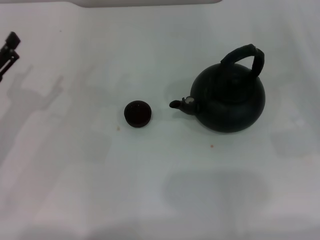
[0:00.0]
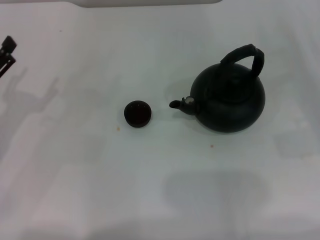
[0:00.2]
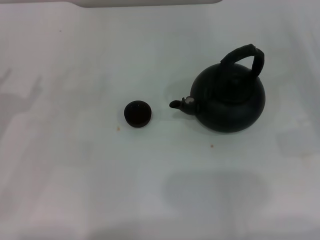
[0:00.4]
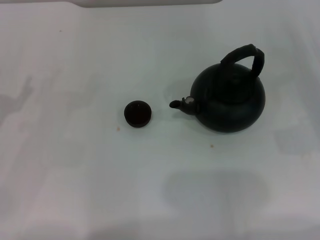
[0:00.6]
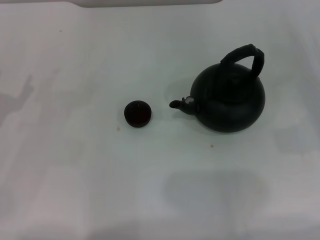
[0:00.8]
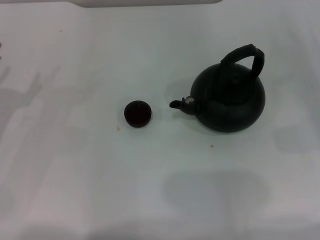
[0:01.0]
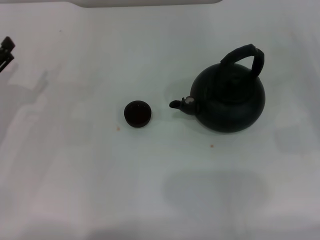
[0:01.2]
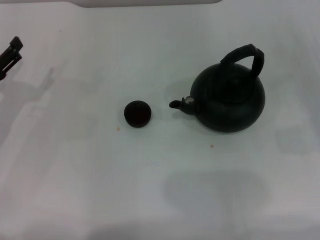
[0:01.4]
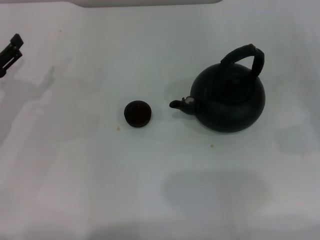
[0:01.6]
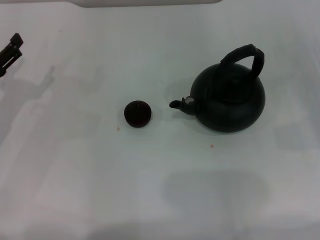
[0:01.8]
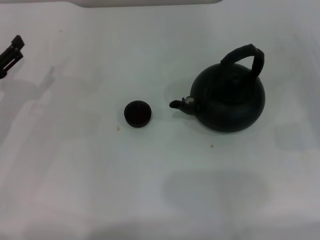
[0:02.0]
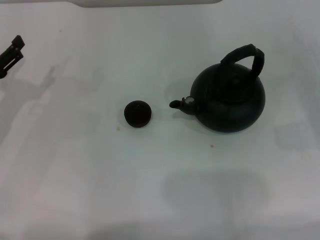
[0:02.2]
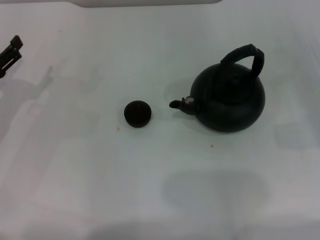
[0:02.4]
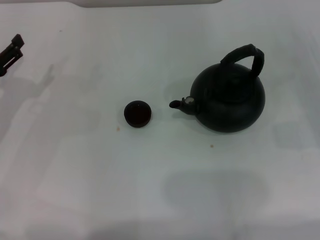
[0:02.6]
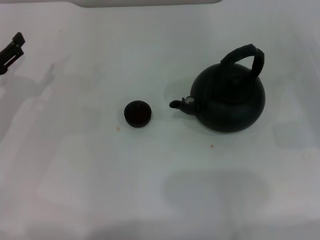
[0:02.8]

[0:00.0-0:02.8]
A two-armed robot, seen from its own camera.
Task of the whole recording: Grasp the handle of the teapot with one hand and pour tea into the teacup.
1.4 to 2.8 s: Both grippers stay put.

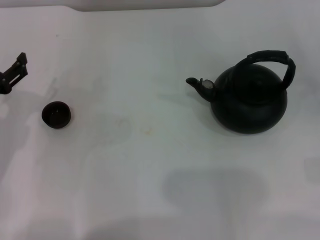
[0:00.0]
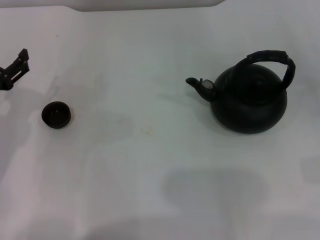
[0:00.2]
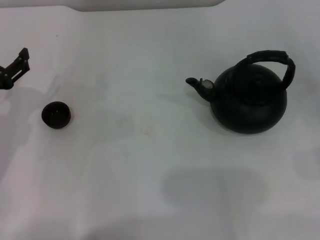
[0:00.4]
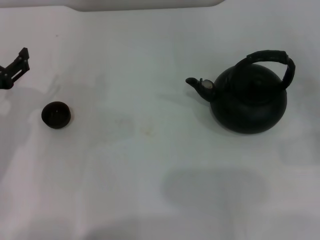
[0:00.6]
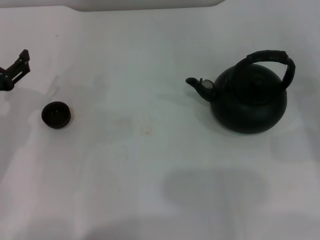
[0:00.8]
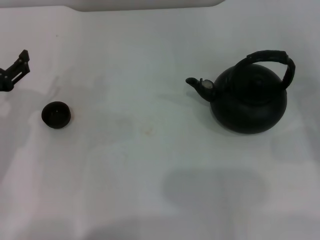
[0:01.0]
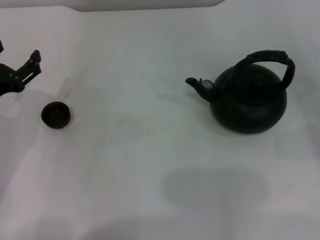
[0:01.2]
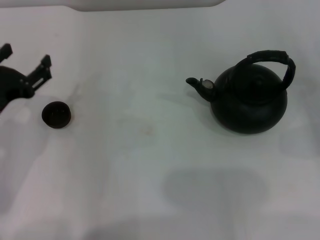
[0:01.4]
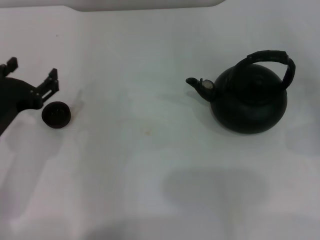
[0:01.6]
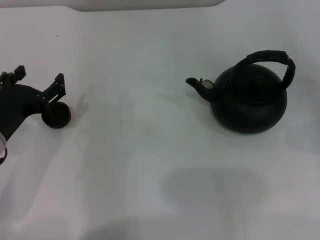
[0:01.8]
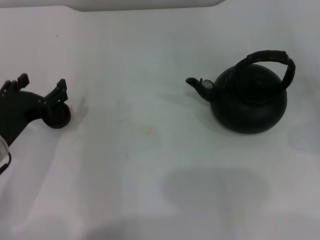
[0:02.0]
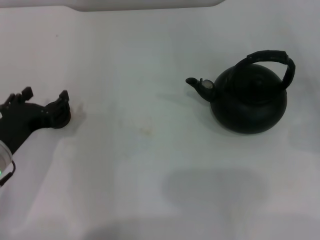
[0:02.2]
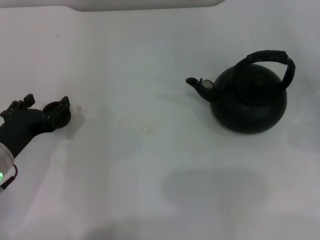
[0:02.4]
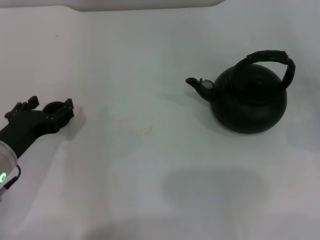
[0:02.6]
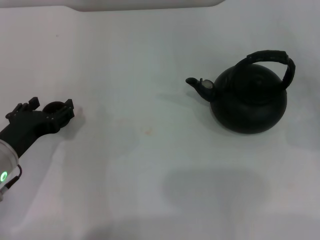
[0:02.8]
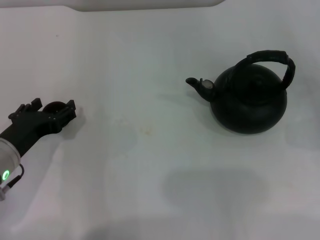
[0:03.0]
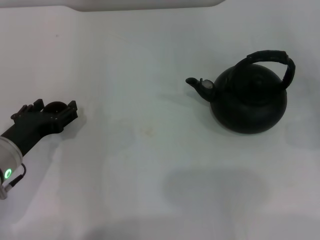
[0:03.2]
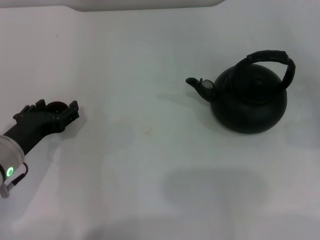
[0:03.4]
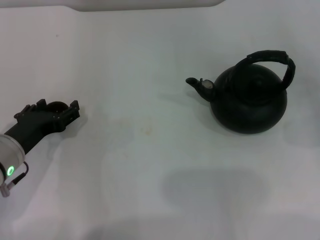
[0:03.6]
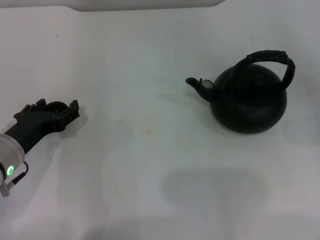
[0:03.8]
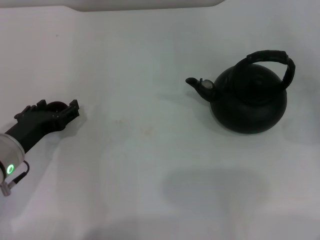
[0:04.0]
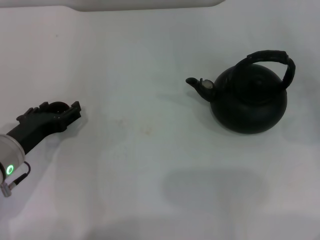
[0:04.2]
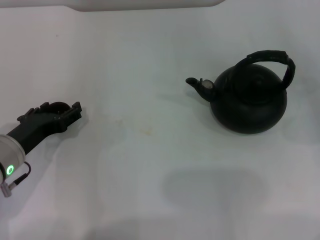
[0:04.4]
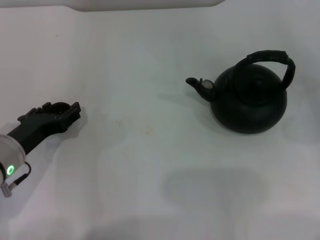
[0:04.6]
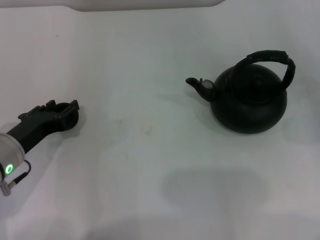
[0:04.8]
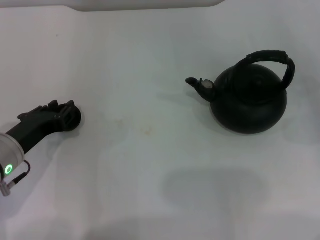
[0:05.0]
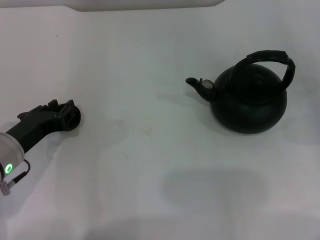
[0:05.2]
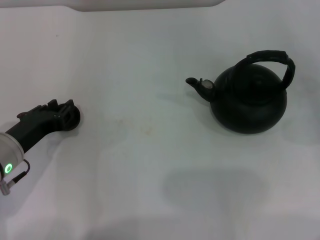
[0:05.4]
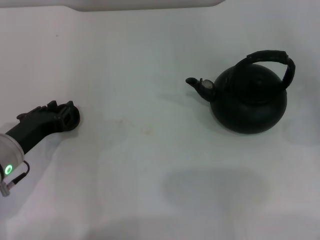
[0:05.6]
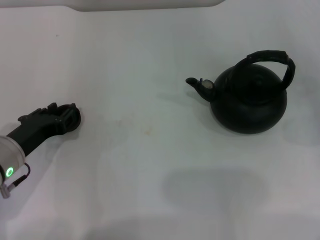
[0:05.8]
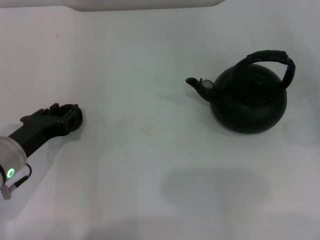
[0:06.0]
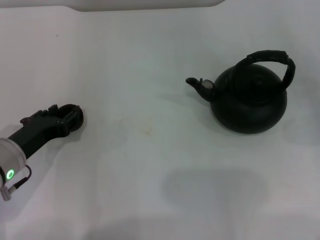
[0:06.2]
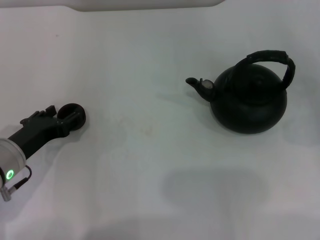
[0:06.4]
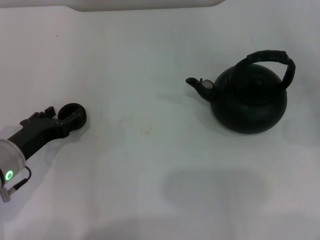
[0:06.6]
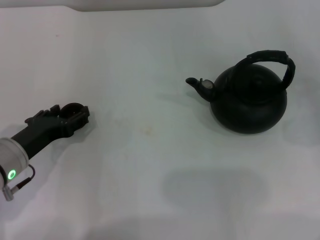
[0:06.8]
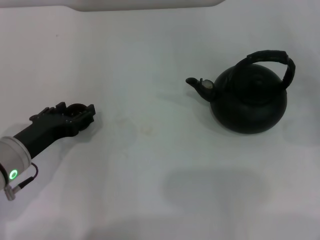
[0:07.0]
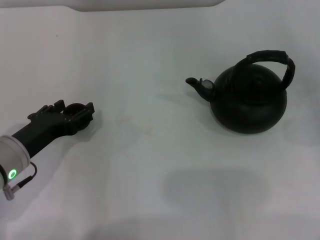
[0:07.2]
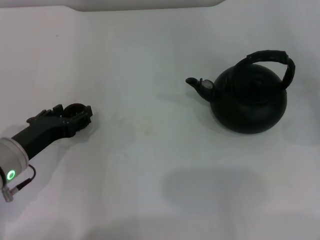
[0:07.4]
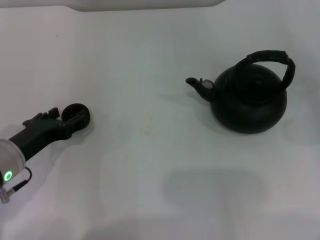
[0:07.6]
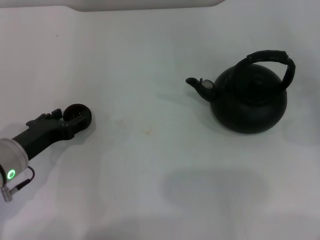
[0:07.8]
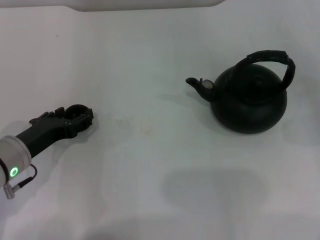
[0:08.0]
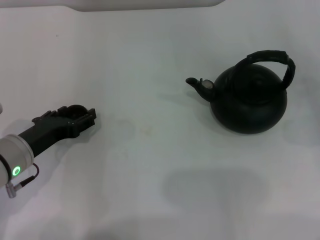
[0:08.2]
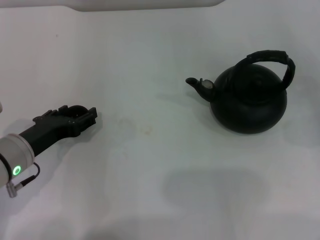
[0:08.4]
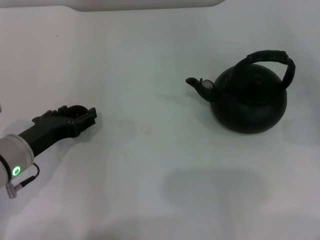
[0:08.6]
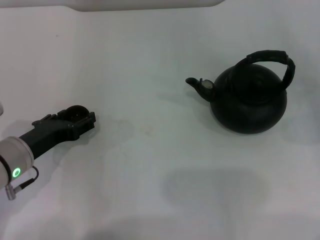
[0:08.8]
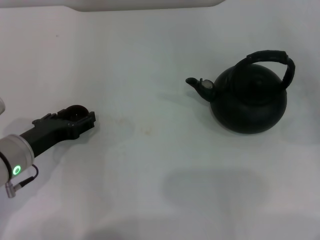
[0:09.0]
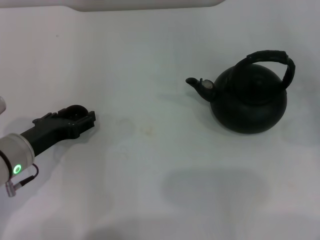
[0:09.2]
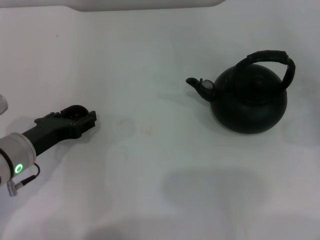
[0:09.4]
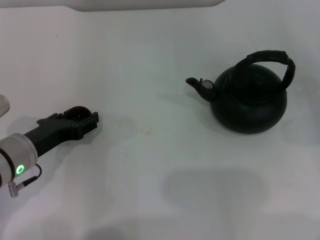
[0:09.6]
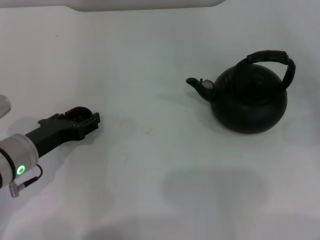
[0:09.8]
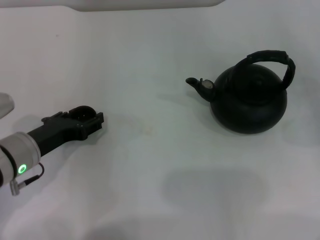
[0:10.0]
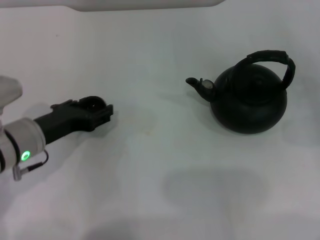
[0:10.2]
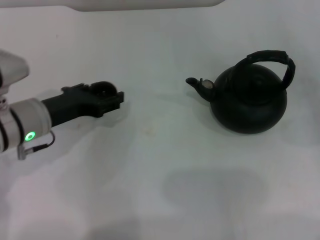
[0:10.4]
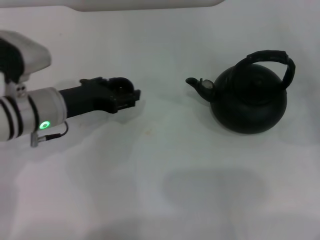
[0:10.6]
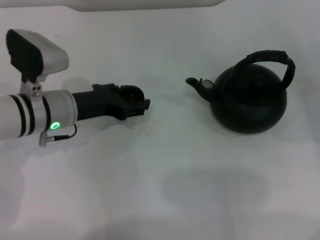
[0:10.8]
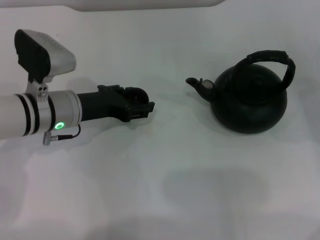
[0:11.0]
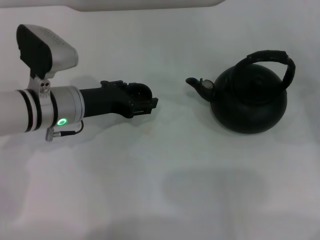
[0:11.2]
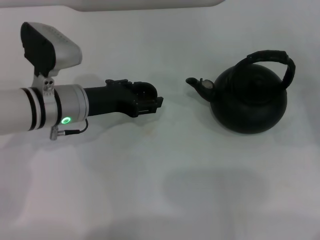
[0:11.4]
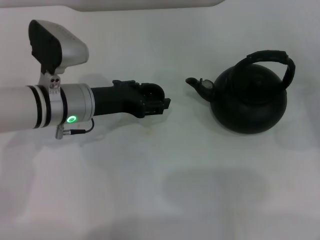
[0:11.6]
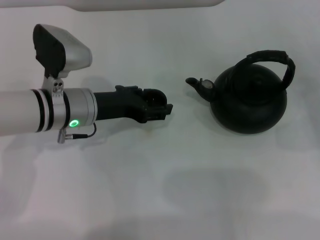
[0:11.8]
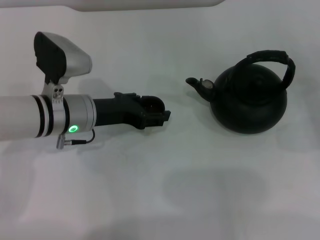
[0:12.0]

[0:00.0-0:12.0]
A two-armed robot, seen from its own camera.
Task of the whole recording: Grasp the handle of the teapot with one hand and pour tea into the teacup.
Step, 0.0 to 10.2 s: Pick up the teacup with the left gripper.
0.0 to 1.6 s: The left gripper travels to the right by roughly 5 cm.
1.6 to 3.0 s: The grippers stay close to where they were, moving slightly.
3.0 to 4.4 s: The grippers move only a little.
4.4 to 6.0 s: The left gripper closes up.
6.0 to 7.6 s: The left gripper opens up.
7.6 to 9.0 s: The two grippers keep their place.
9.0 to 10.4 s: The left gripper moves approximately 5 cm.
10.4 to 12.0 s: The left gripper heads to the right, covering some 5 cm.

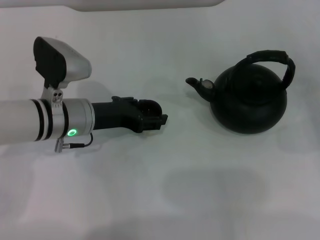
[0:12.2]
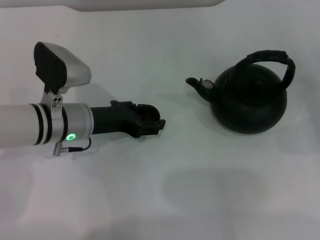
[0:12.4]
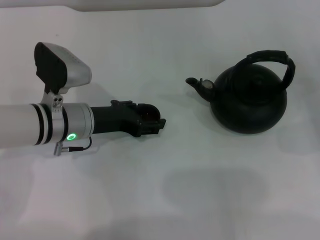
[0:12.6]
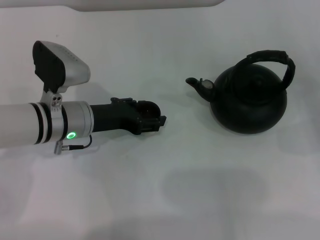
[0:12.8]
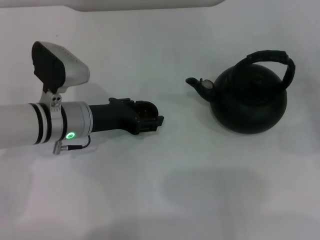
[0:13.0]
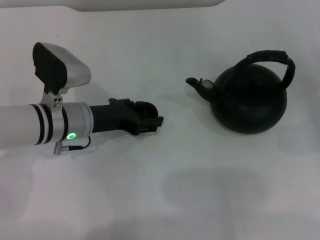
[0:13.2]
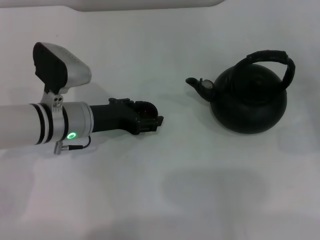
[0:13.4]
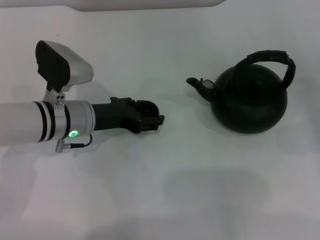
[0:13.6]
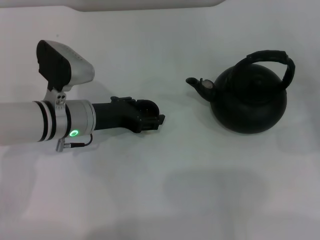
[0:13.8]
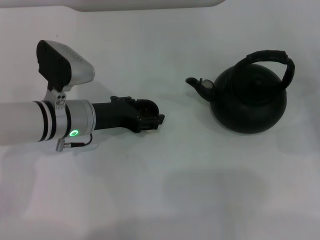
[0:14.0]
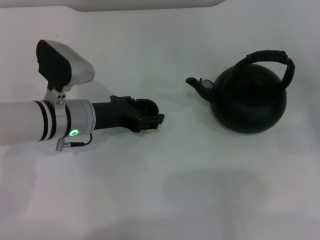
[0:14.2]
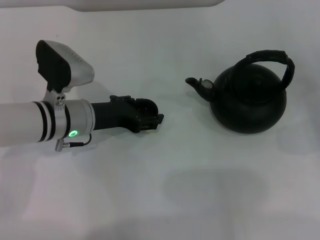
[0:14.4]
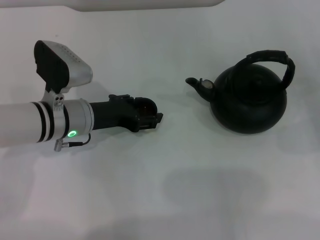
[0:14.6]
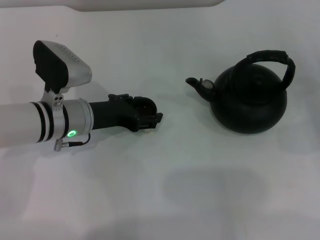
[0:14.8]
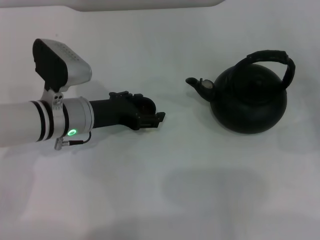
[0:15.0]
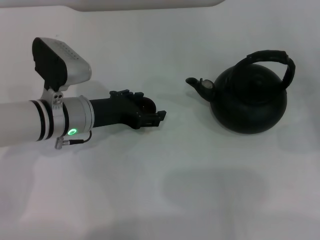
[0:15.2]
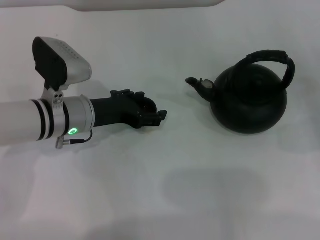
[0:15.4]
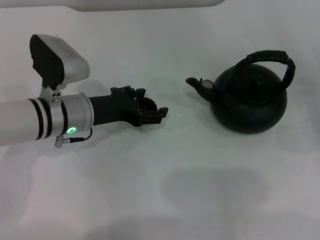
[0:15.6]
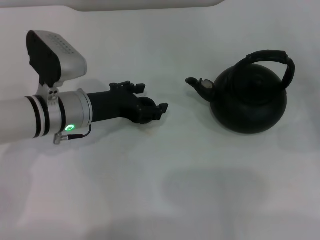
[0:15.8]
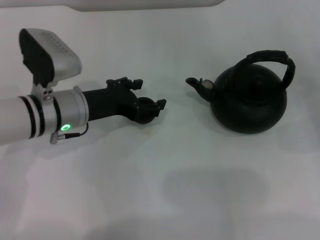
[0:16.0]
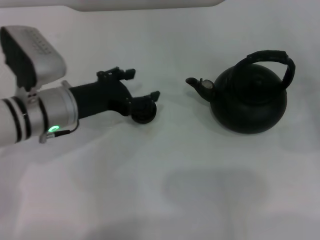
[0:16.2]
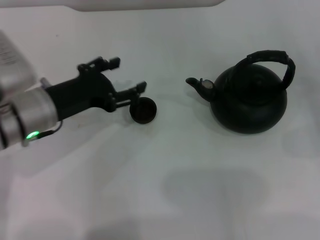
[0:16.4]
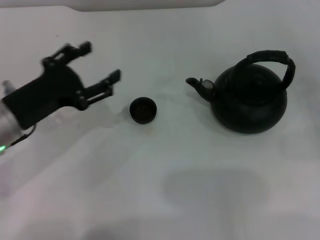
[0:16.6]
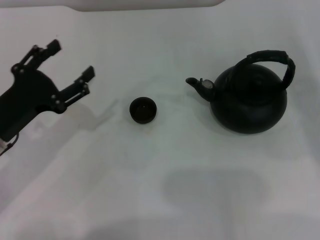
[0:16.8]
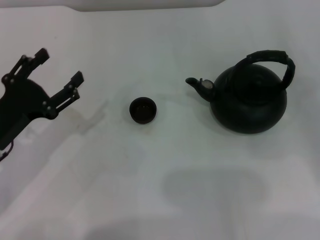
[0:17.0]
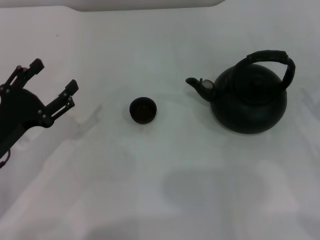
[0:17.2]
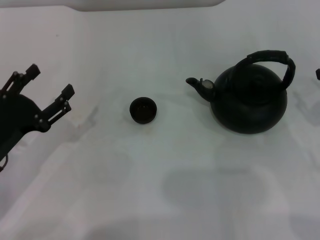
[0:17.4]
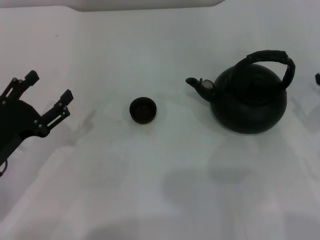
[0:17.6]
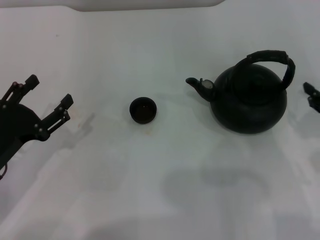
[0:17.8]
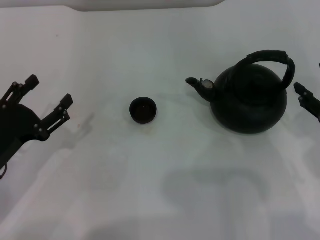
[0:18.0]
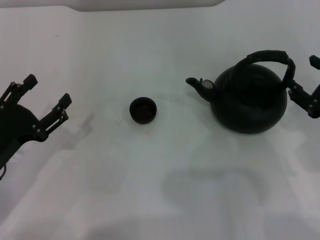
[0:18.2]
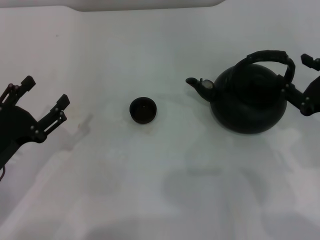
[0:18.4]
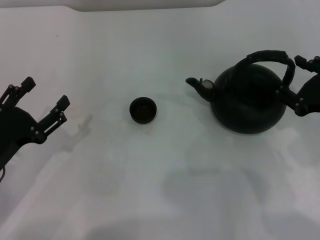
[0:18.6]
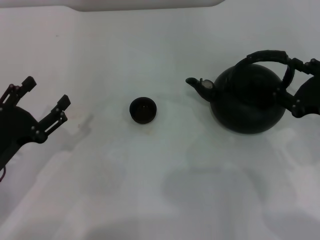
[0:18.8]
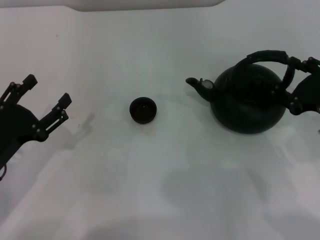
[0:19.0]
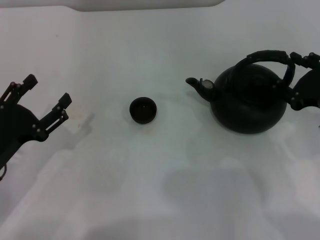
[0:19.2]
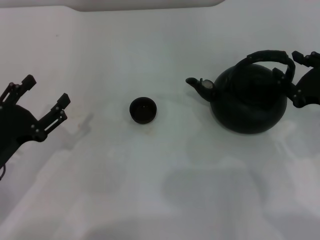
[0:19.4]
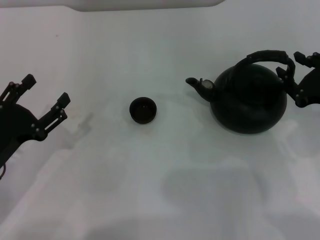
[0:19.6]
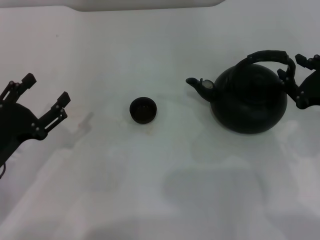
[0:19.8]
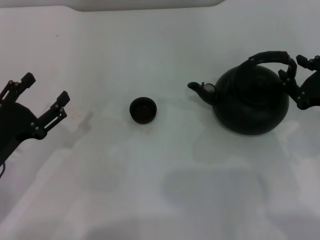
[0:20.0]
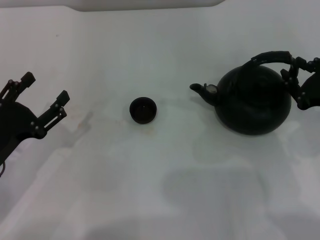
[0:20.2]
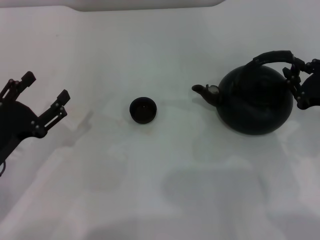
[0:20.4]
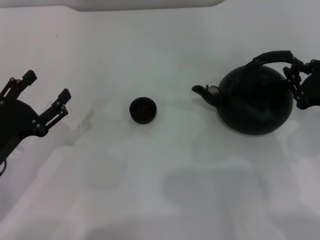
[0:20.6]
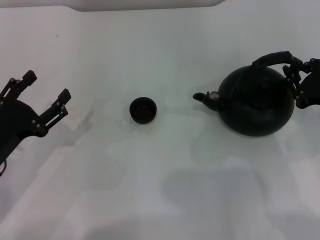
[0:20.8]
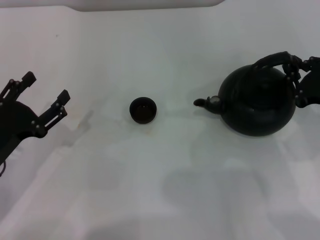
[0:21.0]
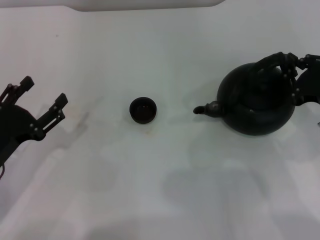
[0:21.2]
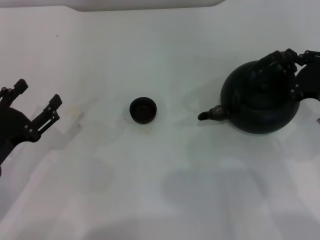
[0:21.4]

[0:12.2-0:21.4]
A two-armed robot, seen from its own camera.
Task of the whole recording: Grasp the handle of the teapot with one hand and pour tea into the teacup.
Step, 12.2 to 16.4 s: Place the teacup in the center of view with the left gripper.
12.2 to 13.8 s: Both grippers stay put.
13.8 to 15.2 s: Both grippers stay put.
15.2 to 16.8 s: The right gripper is displaced upward by about 5 cm. Meanwhile the left gripper heads to the left and backward, covering approximately 10 cm.
16.8 to 18.4 s: The left gripper changes place by roughly 5 cm, while the right gripper travels to the left by about 15 cm.
18.4 to 19.8 s: The right gripper closes up.
19.8 to 21.4 s: The right gripper closes up.
